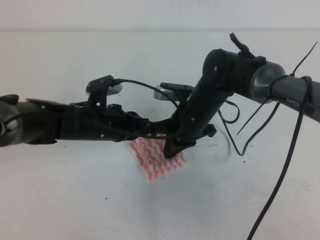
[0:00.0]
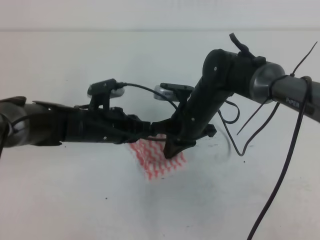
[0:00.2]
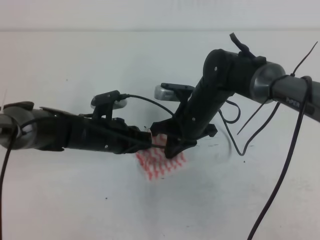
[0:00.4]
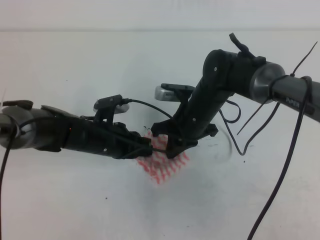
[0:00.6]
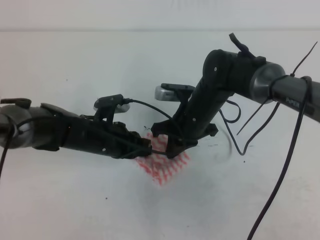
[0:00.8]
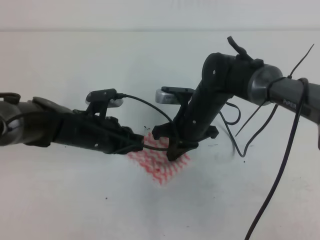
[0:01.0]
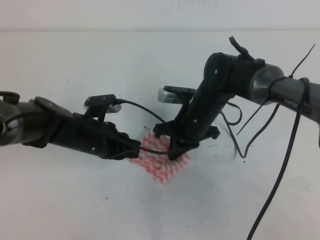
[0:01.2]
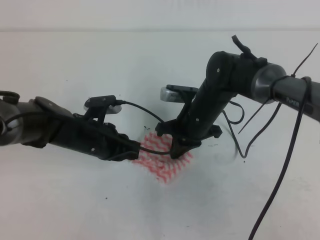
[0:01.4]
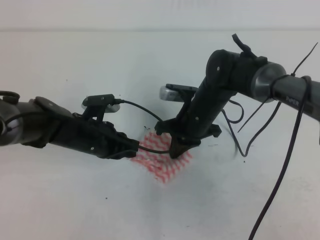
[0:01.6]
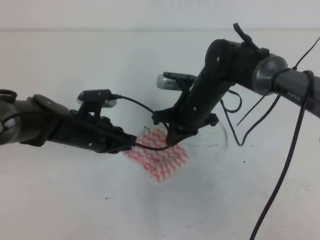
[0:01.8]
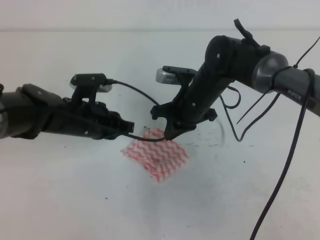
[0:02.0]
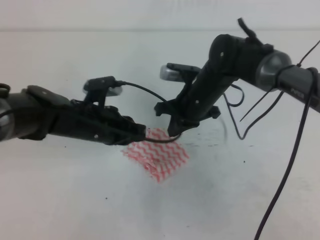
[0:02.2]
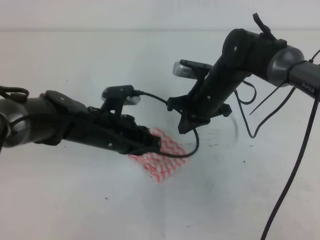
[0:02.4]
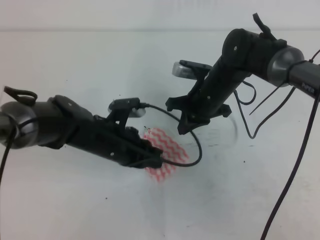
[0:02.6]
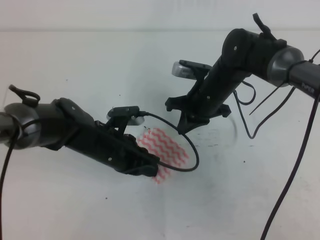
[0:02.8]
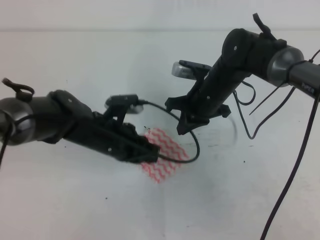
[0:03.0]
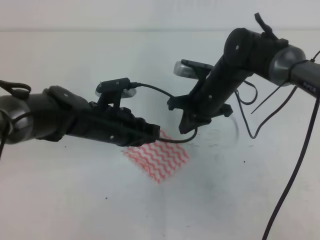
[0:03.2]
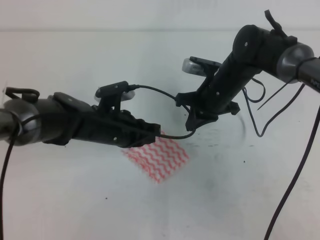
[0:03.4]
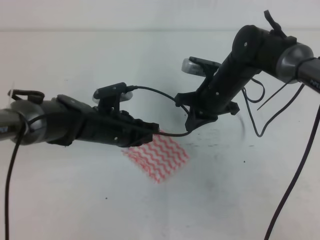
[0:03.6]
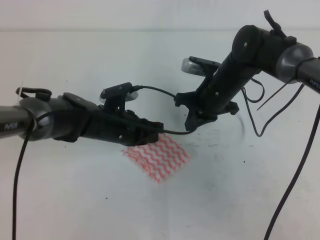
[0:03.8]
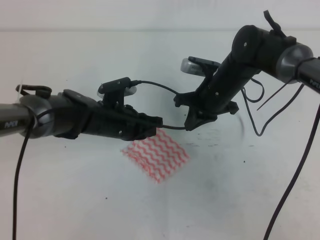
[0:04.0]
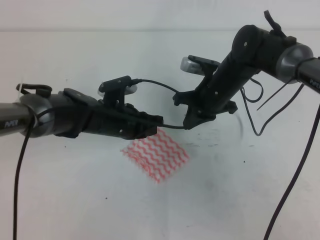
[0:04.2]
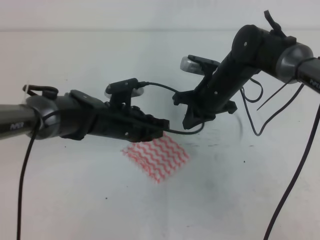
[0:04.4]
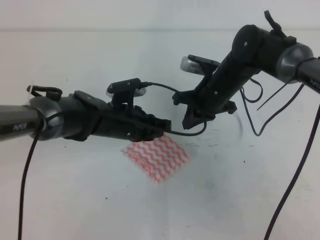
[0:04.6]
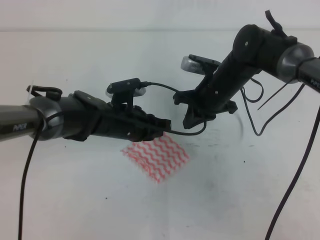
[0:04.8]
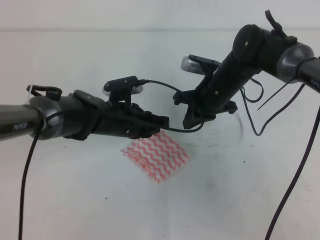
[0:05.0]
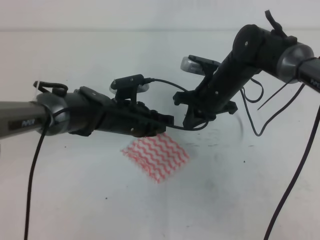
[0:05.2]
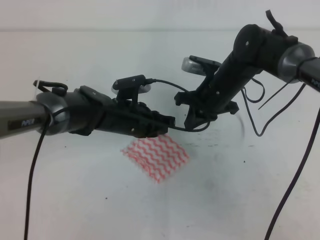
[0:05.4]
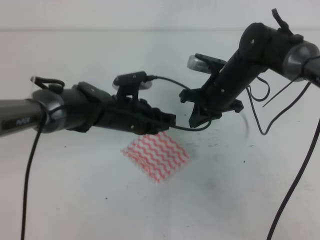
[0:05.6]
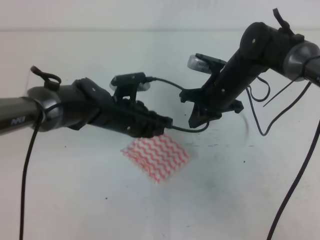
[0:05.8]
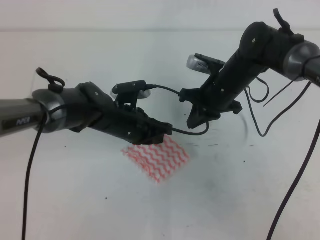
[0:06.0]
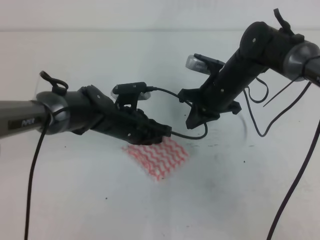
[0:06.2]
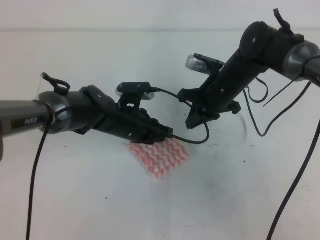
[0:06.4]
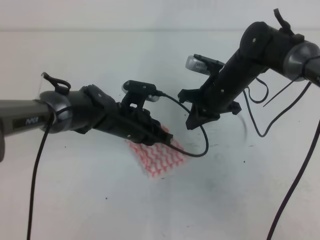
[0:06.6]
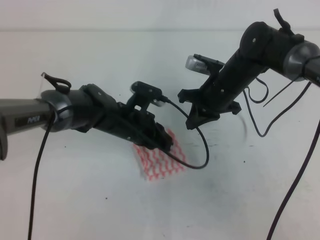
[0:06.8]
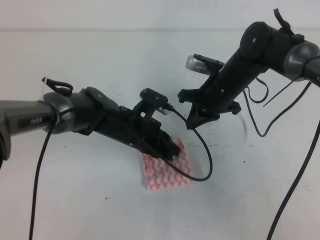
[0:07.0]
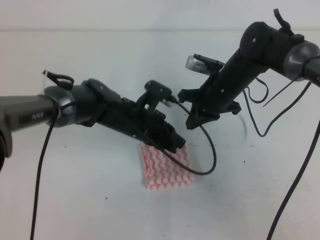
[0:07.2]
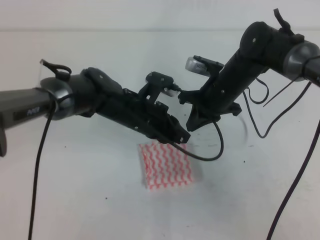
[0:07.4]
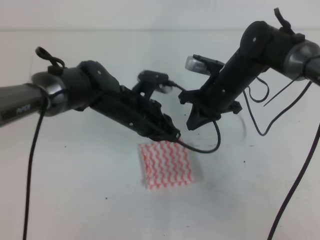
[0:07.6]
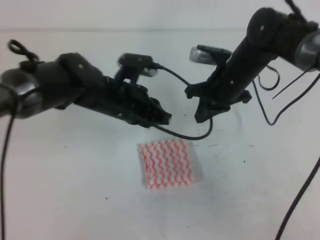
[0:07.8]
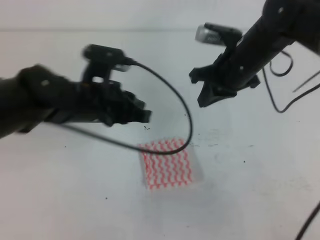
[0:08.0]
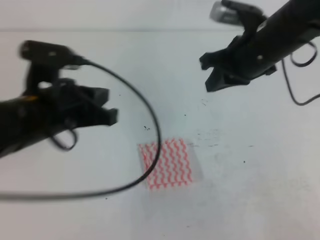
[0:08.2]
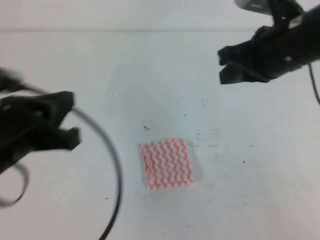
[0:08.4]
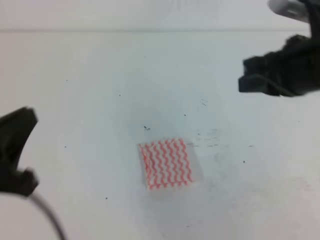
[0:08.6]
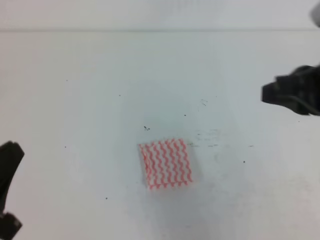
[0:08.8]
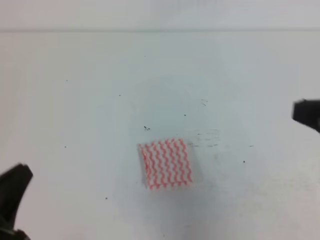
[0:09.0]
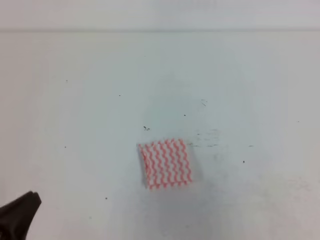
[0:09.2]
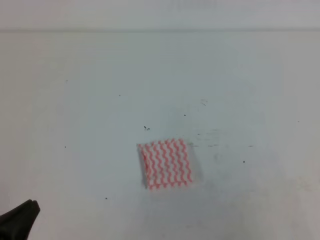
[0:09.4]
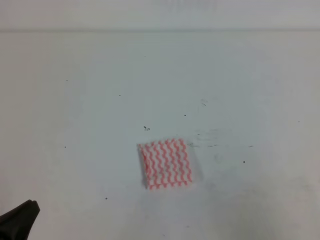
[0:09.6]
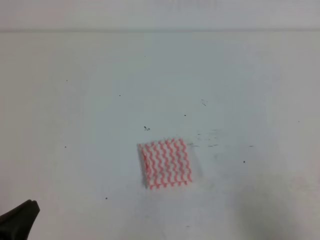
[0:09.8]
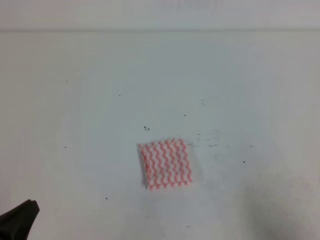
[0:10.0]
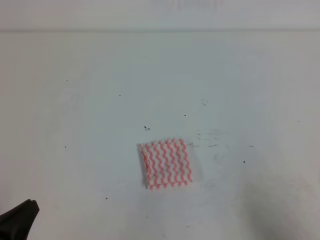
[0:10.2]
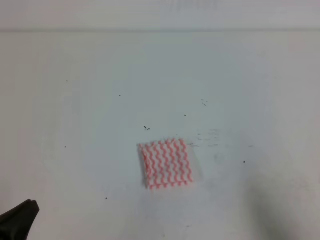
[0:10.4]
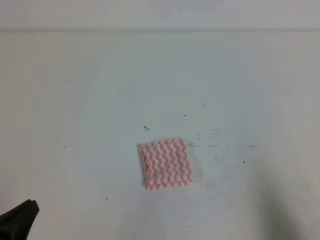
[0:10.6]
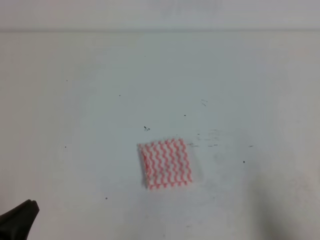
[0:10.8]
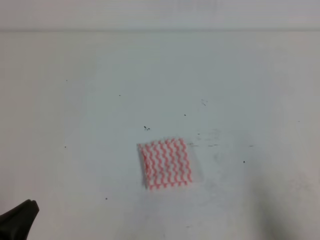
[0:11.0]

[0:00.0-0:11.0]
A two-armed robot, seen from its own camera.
0:00.0 to 0:01.6: The grippers make only small movements.
0:03.2 to 0:06.2: The grippers stay close to where they were, moving slightly.
0:06.2 to 0:07.8: The left gripper goes approximately 10 cm upward.
0:07.8 to 0:09.4: The right gripper heads backward and to the right, covering approximately 35 cm. Meanwhile the left gripper heads backward and to the left, covering about 30 cm.
0:09.4 to 0:11.0: The right gripper goes about 10 cm downward.

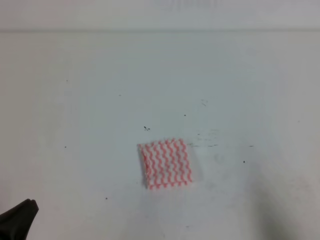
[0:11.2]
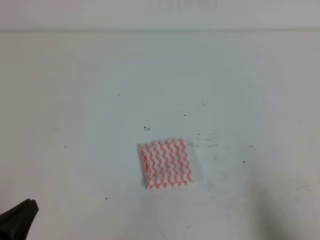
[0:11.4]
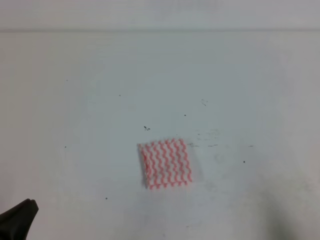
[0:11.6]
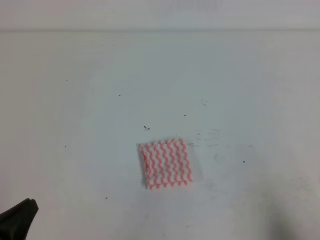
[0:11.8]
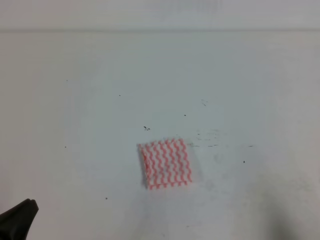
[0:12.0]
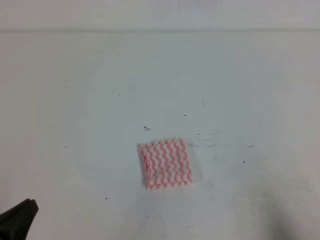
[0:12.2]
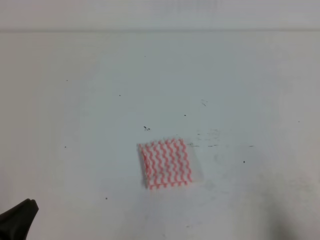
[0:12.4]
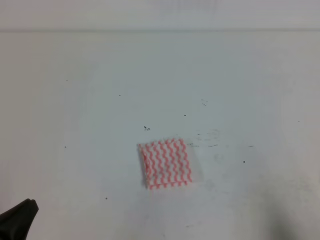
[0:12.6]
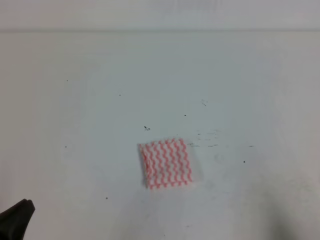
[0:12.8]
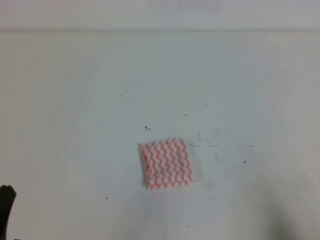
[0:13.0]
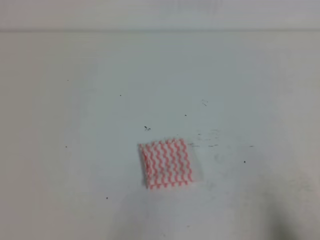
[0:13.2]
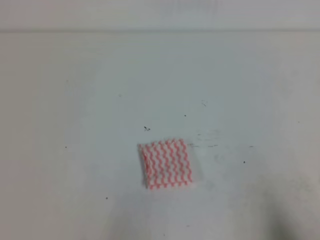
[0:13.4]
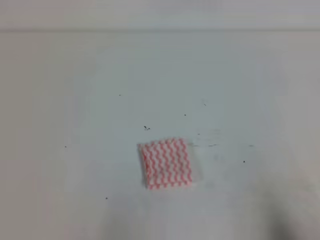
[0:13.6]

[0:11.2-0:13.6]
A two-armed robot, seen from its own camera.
Step, 0:11.2 to 0:13.6: Fold the towel.
0:12.4 to 0:13.6: There are only small adjustments of the grippers.
